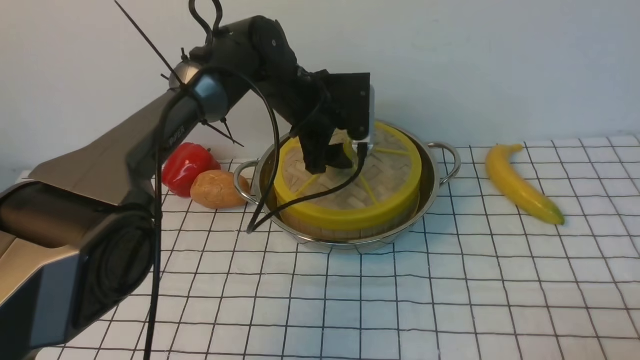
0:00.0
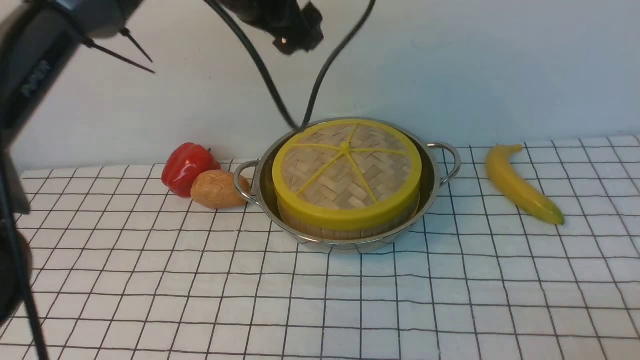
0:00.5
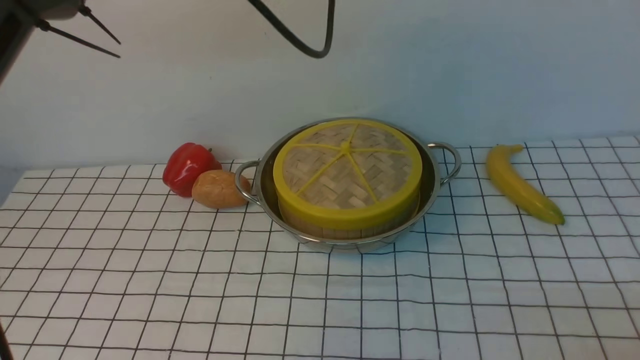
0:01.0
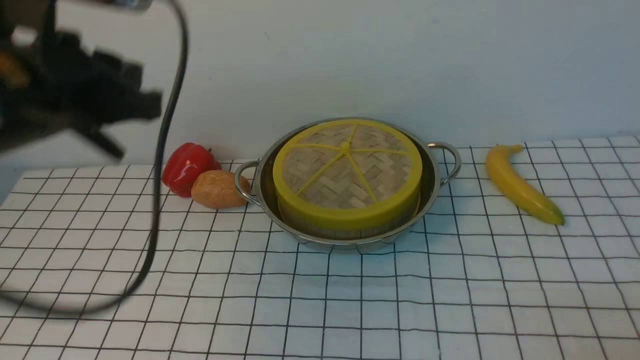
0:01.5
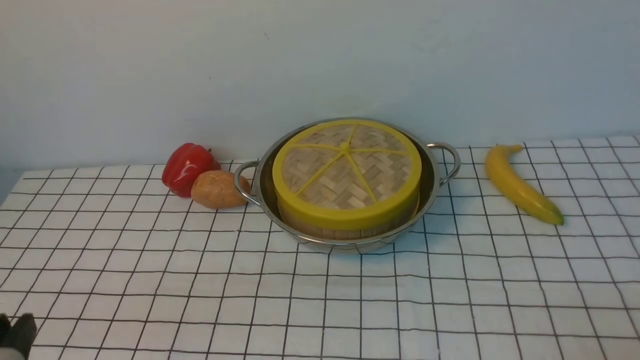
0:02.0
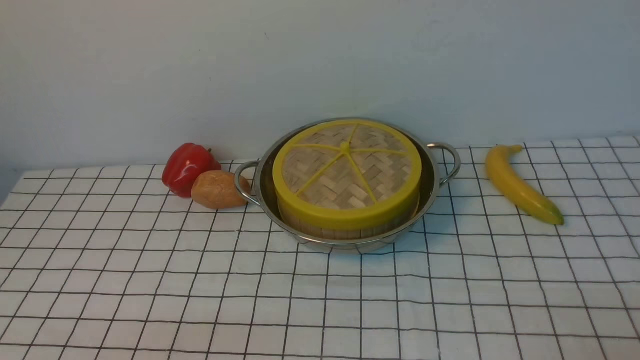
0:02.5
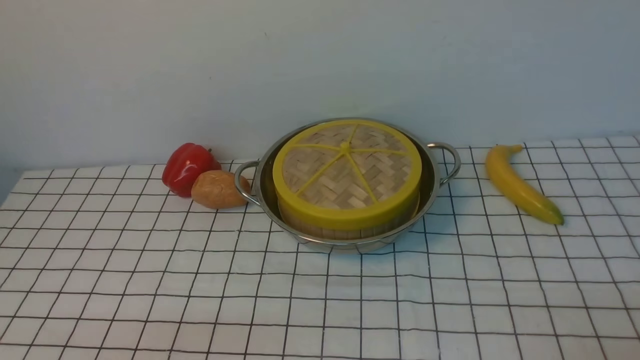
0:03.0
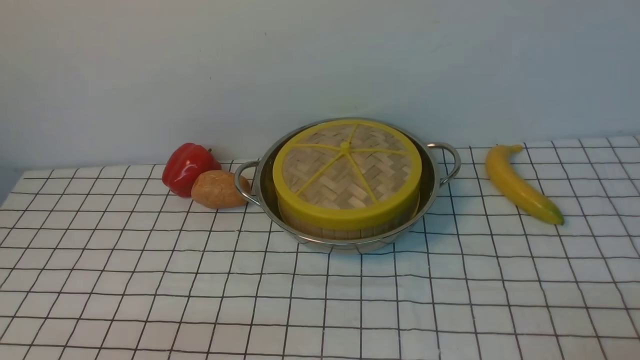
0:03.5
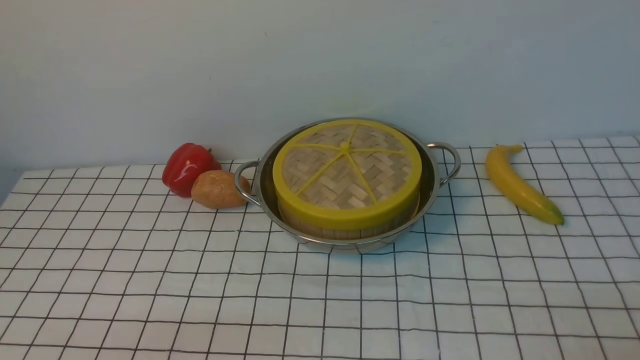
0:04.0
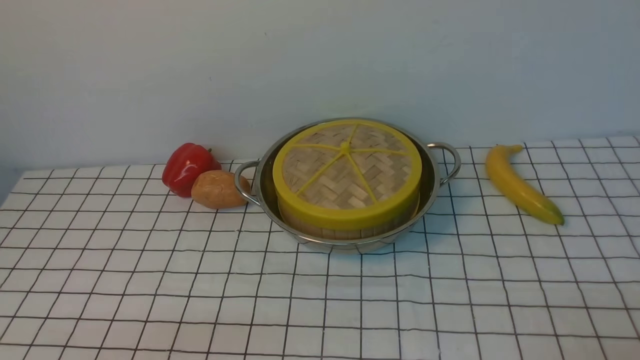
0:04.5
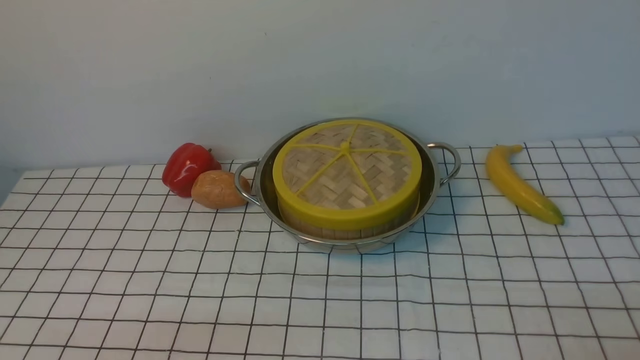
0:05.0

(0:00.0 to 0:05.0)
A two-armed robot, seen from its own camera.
Task of the whole recording: place the steamer in the pot on the white tablecloth, and put the lid on the steamer.
0:00.0 - 0:02.5: The left gripper moves backward and to the left, some 50 cm, and closes up.
0:02.5 - 0:05.0: Both grippers stay about where they are.

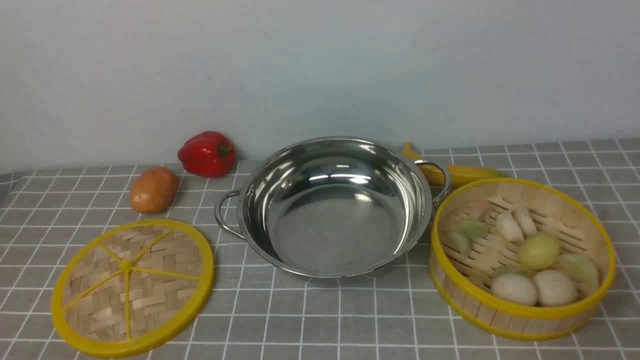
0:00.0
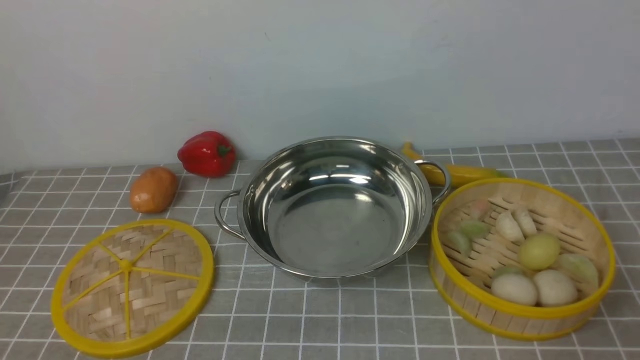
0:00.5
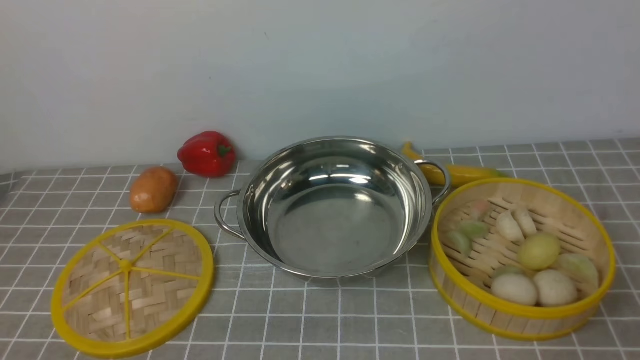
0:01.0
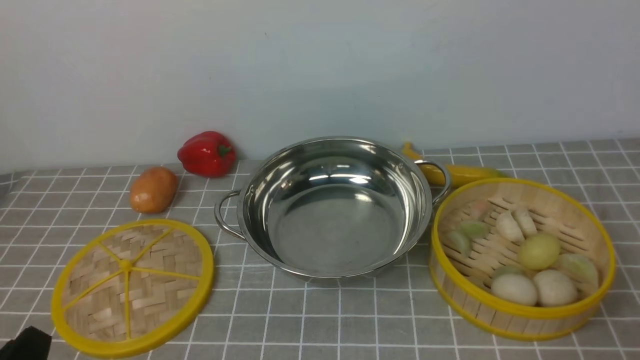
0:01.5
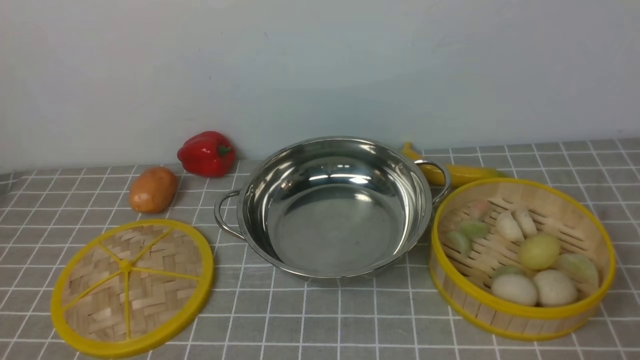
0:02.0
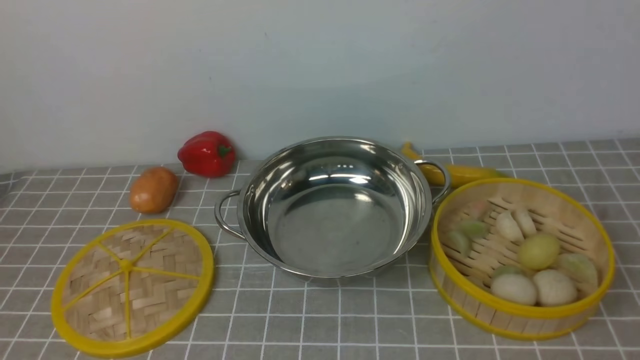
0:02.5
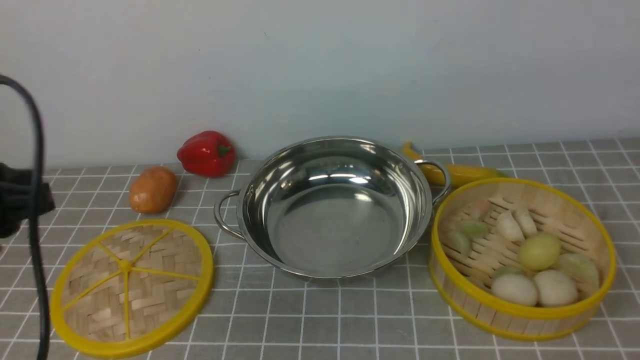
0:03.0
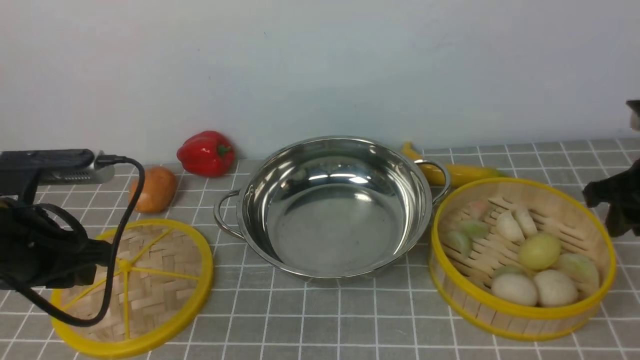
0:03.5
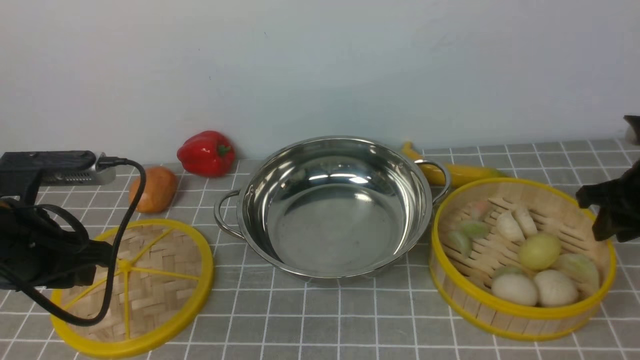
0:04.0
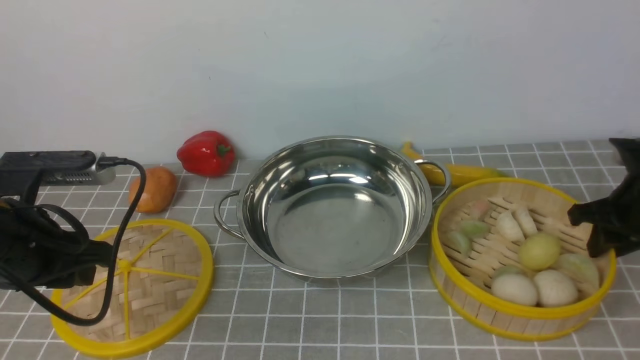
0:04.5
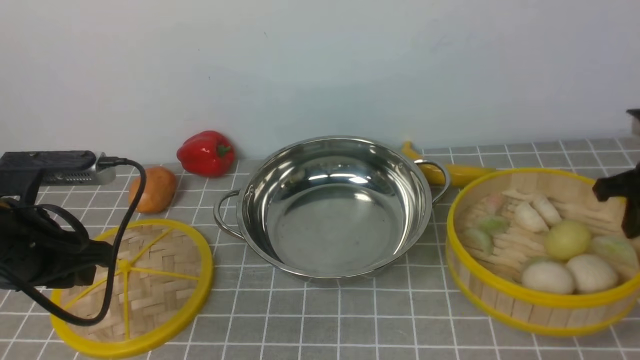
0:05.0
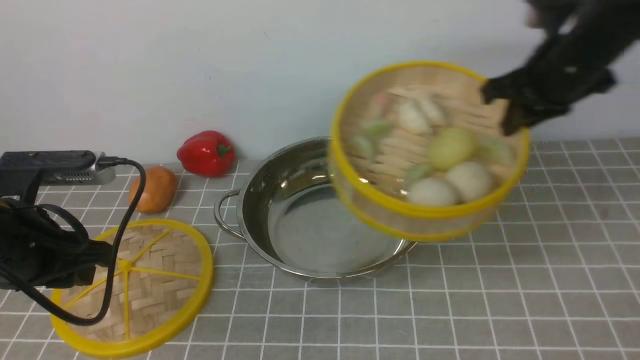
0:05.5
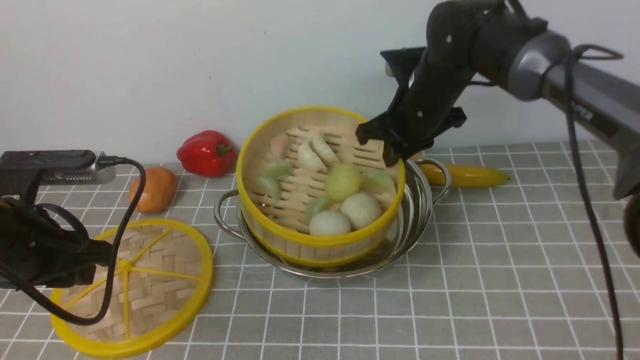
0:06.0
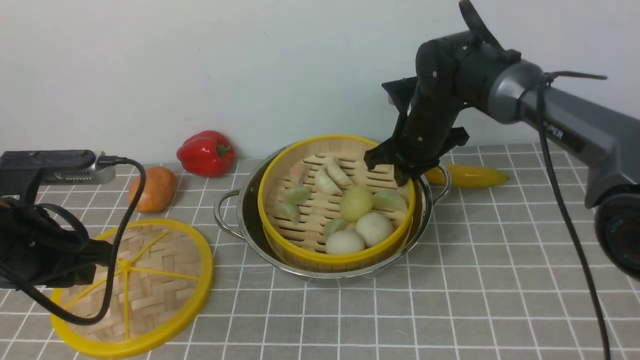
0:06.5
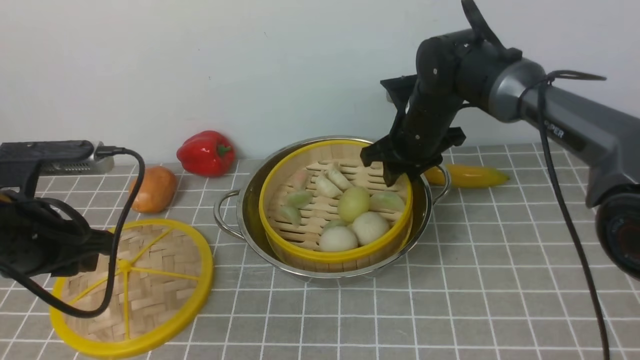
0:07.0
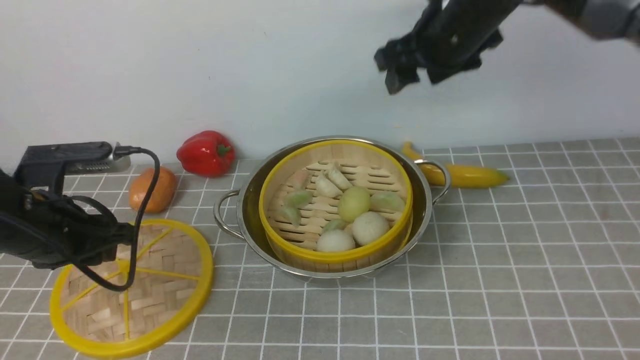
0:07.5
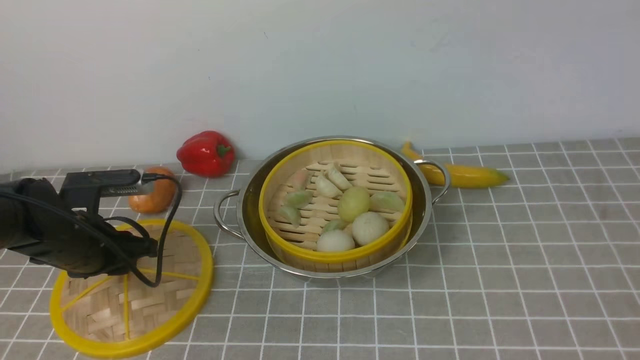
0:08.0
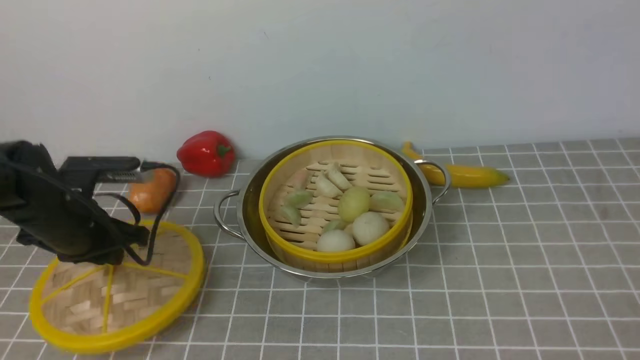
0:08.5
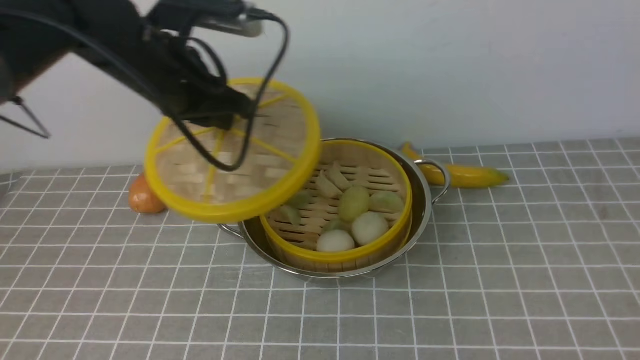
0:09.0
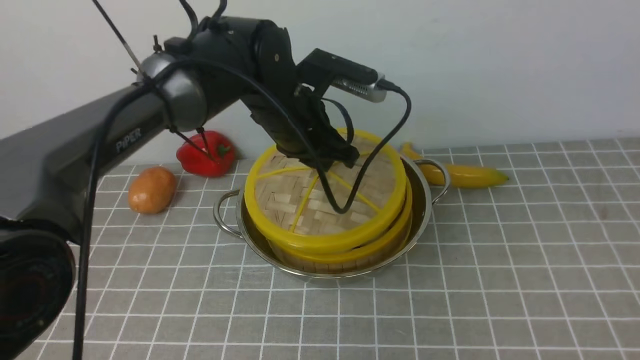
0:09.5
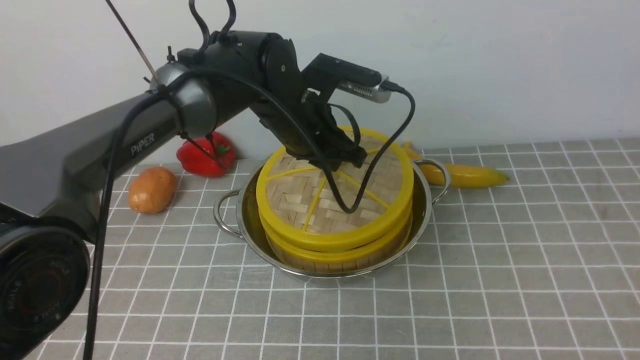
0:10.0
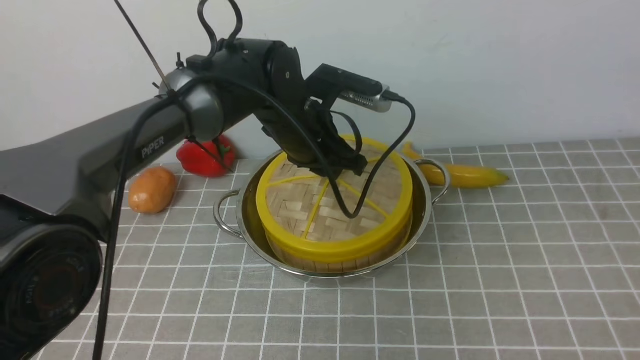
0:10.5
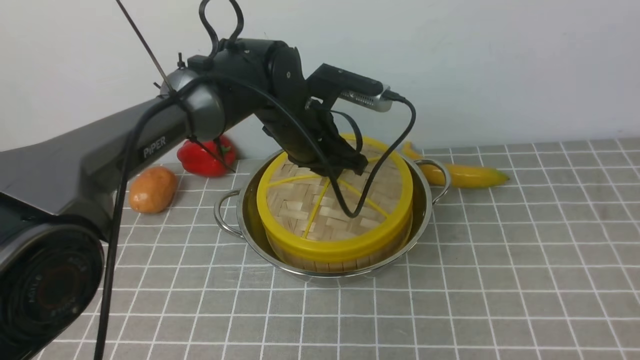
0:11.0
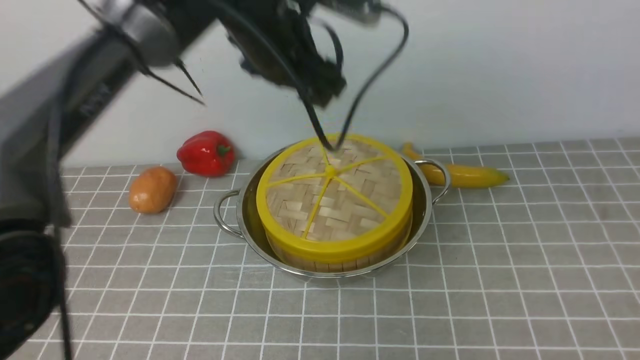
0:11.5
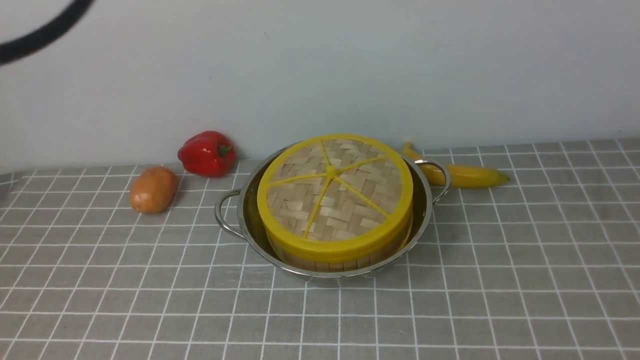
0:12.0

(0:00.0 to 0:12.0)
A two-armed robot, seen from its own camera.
Task of the whole recording: place the steamer in the pot on the grey tablecloth, and put the lid on the steamer.
Step, 0:00.0 - 0:04.5: use the right arm to lift the steamer closest to it.
Step, 0:05.0 - 0:07.0: use the right arm to put the steamer into the iron steamer pot in the middle.
Step, 0:07.5 - 0:08.0: use the left arm to lift the lid of the steamer.
Step, 0:08.5 - 0:11.0: use the left arm to place the steamer lid on the steamer.
0:02.0 - 0:04.0: The right gripper shifts approximately 30 cm forward. Meanwhile the left gripper travels forward by approximately 20 cm.
0:04.0 - 0:06.0: The right gripper shifts roughly 25 cm to the left and forward, and closes.
0:06.0 - 0:08.0: The right gripper is displaced upward and backward by roughly 40 cm, and opens; the left gripper goes some 10 cm downward and forward.
0:08.0 - 0:10.0: The left gripper goes roughly 25 cm to the right and forward. The right gripper travels backward and to the right by some 10 cm.
0:10.0 - 0:12.0: The right gripper is displaced downward by some 10 cm, and closes its fingers, while the left gripper moves upward and backward, approximately 35 cm, and opens, then closes once more.

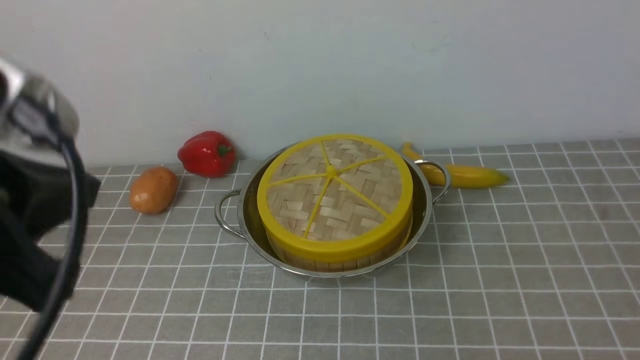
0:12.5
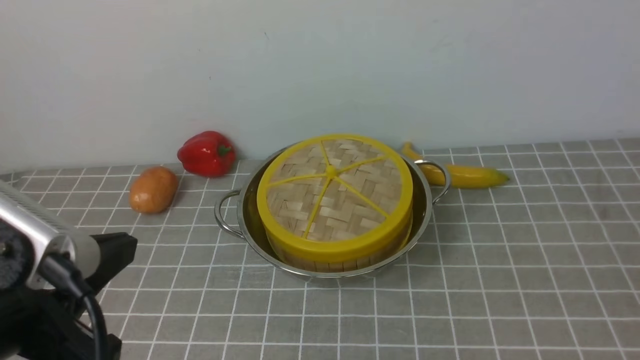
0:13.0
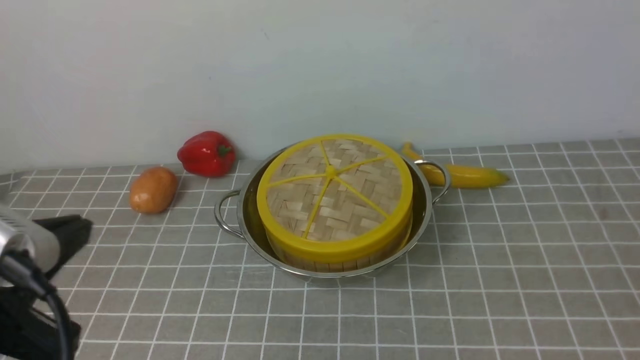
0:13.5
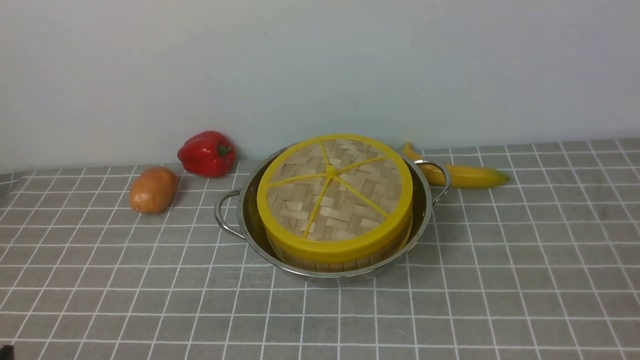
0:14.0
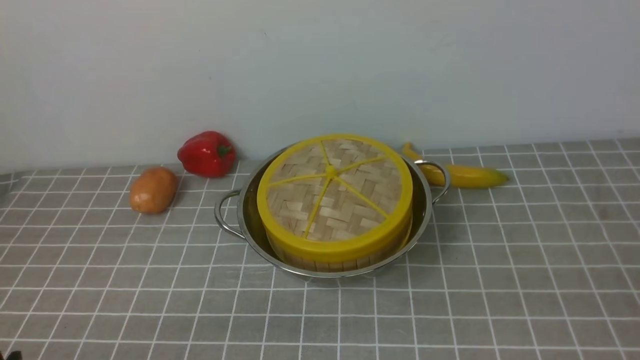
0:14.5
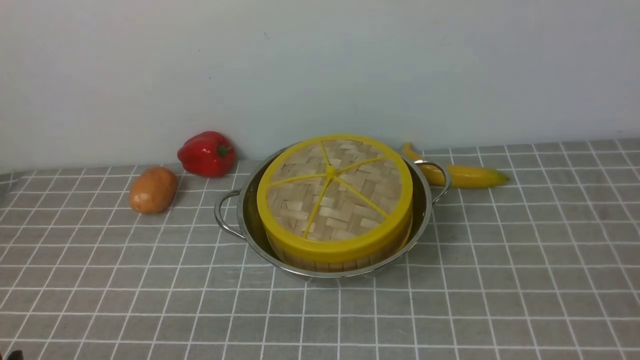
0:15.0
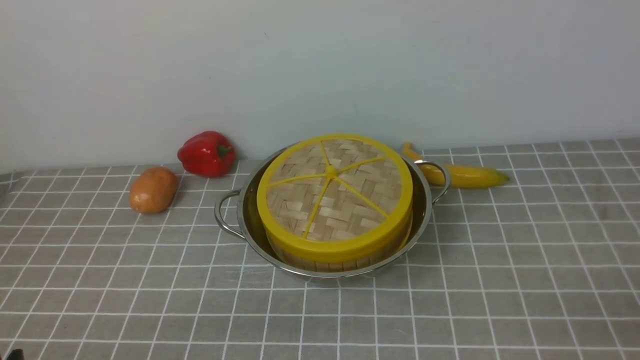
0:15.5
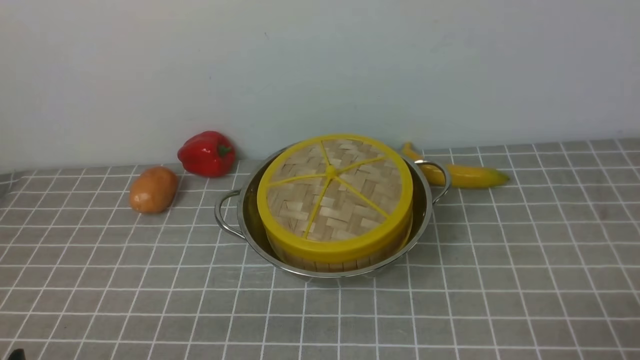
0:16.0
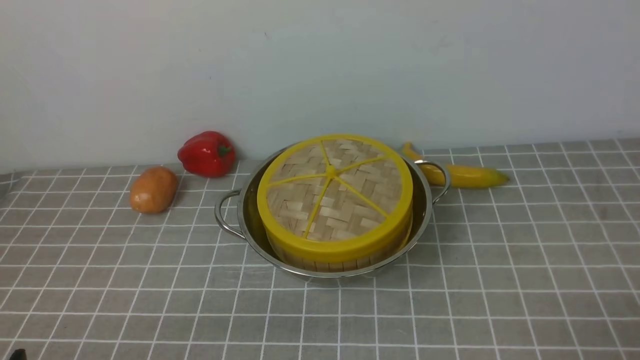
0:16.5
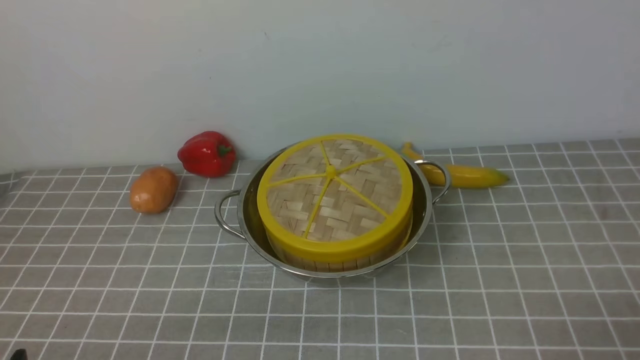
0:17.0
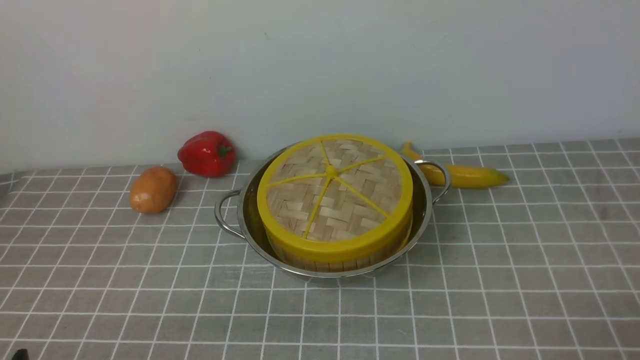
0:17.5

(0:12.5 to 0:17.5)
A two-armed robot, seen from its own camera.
Task of the whole recording: place the steamer in the pot on the grey tablecloth, and put the lid on the steamer.
0:12.5 - 0:15.0: The left gripper heads downward, covering some 20 cm.
